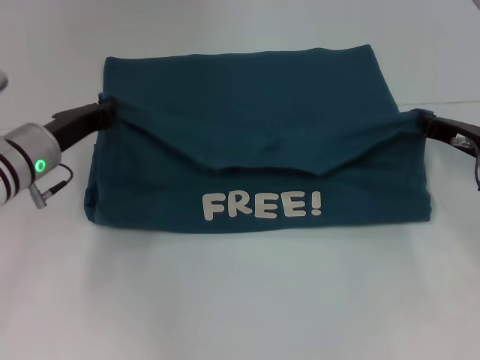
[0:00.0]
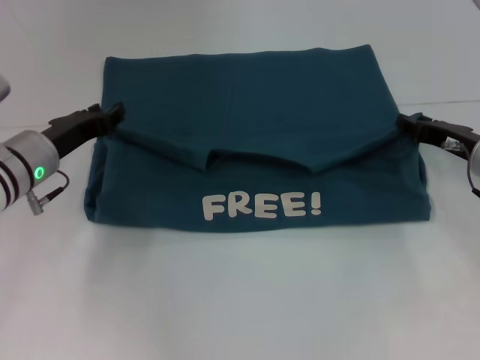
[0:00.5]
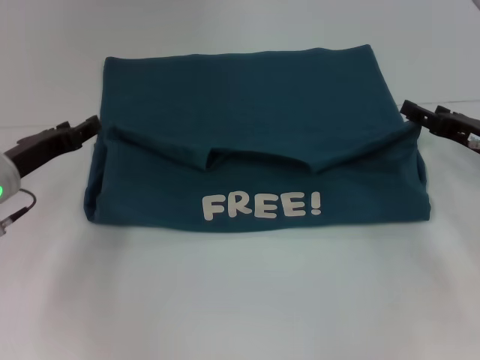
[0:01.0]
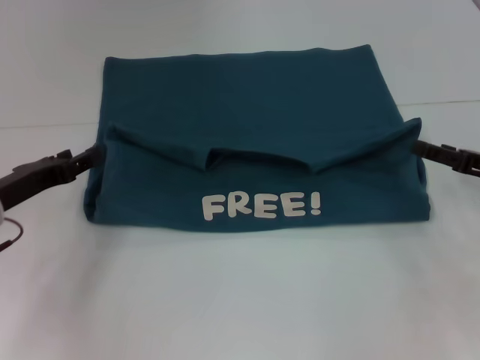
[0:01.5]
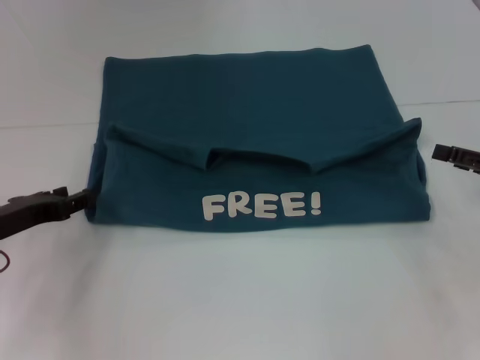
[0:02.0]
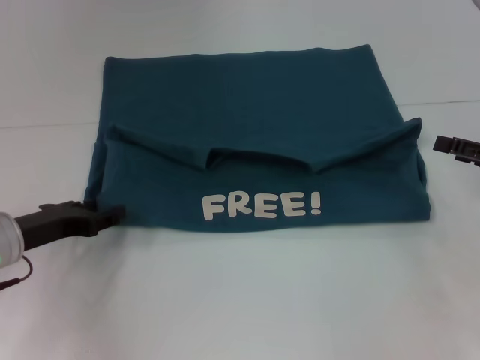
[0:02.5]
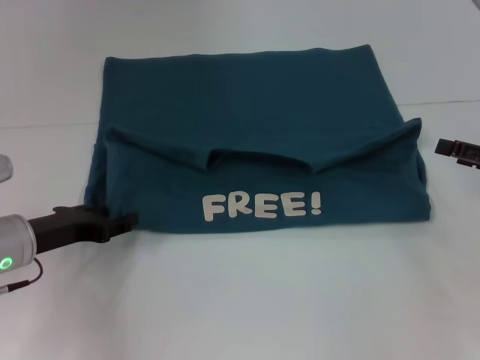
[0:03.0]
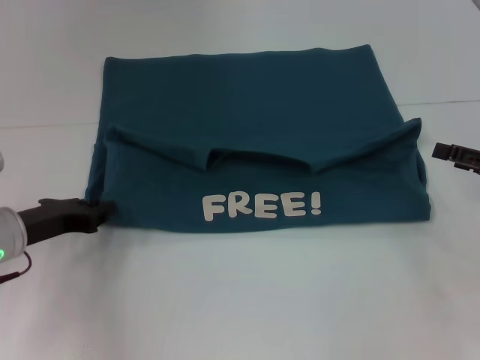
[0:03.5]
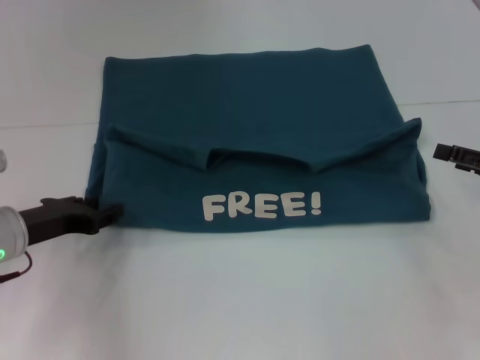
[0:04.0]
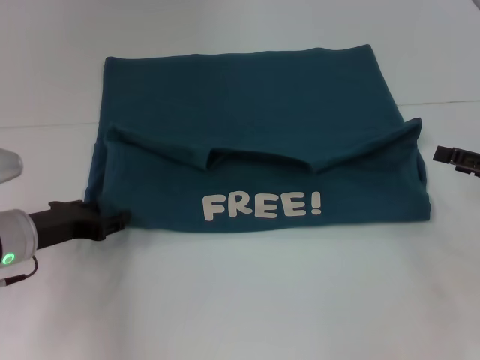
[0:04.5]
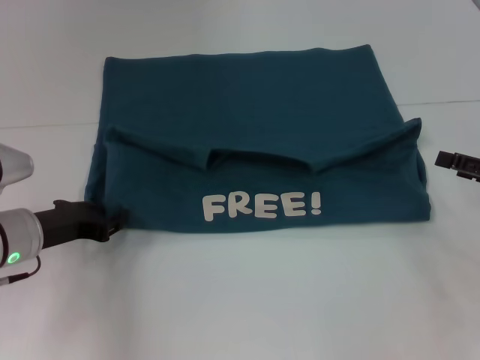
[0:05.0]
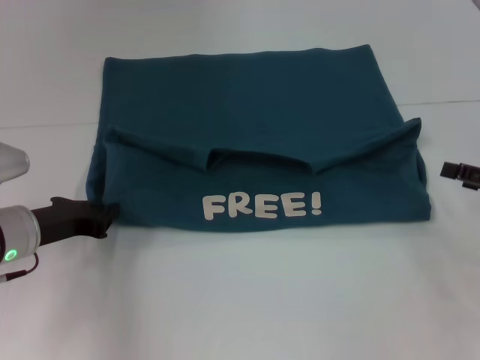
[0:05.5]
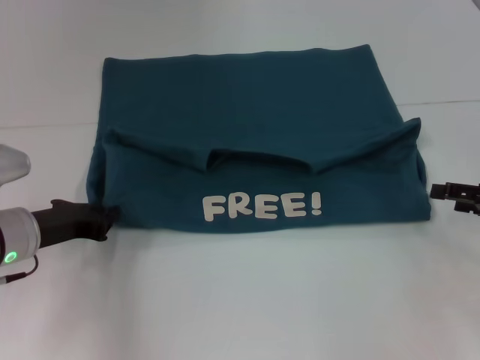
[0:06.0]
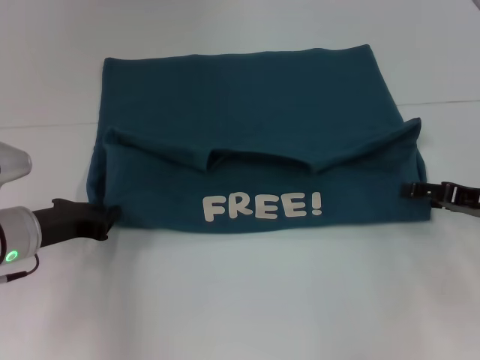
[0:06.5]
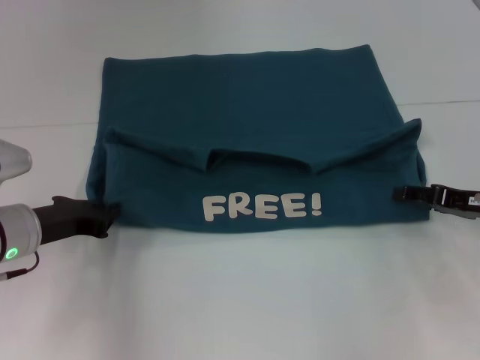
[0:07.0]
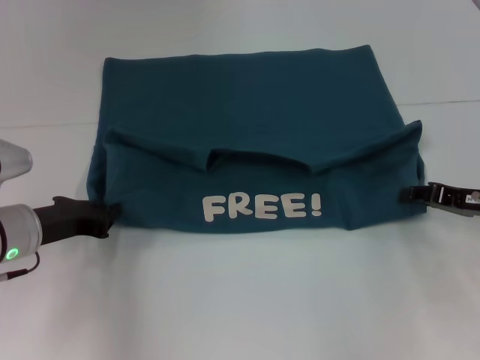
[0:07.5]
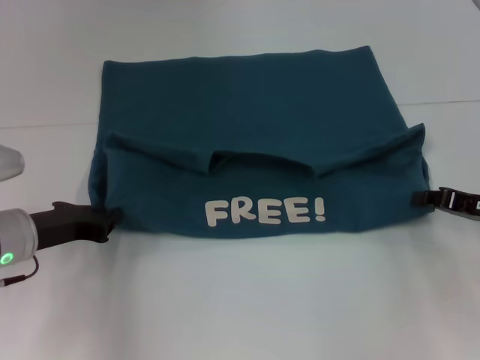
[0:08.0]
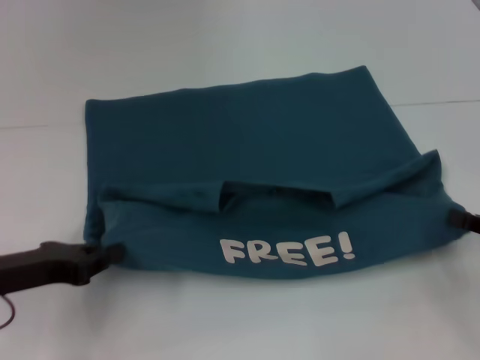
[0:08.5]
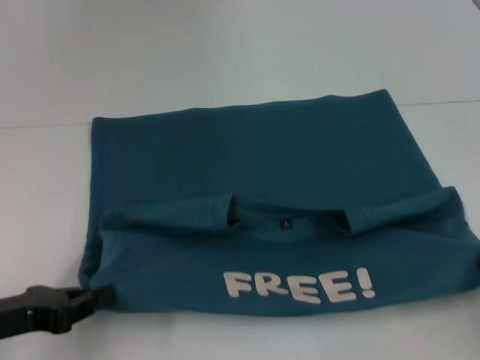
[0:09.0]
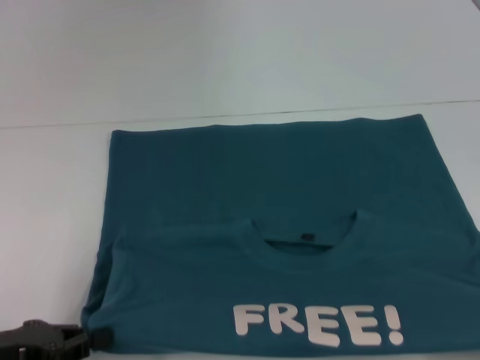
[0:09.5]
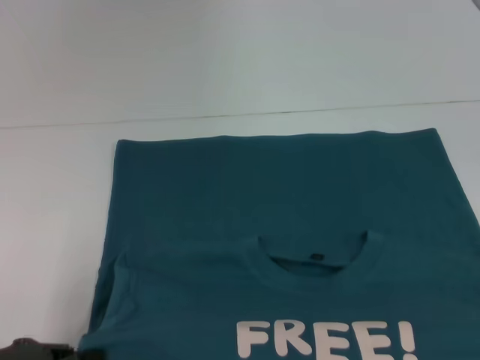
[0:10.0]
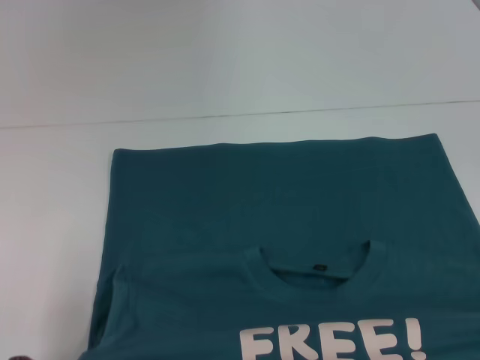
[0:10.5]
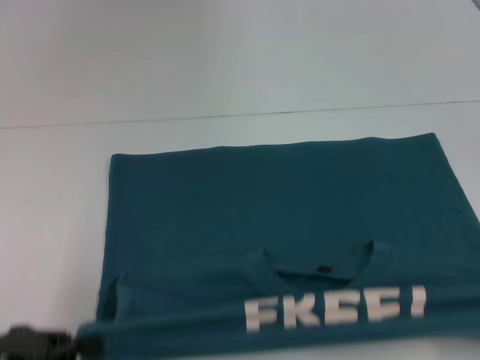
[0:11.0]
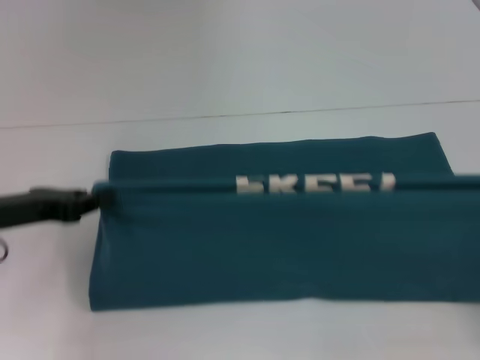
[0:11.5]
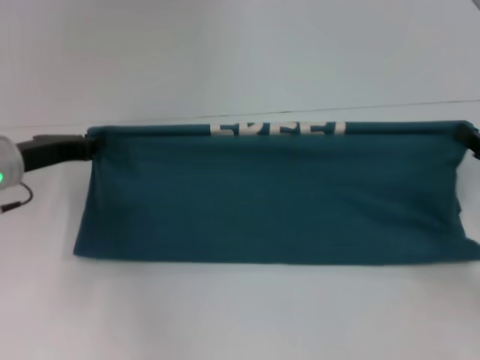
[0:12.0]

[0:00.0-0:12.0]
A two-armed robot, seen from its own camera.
Step, 1.0 to 10.0 s: Pull the clothes with your left hand.
Step, 1.0 to 10.0 s: Pull the clothes with your right hand.
0.0 to 2.0 s: The left gripper is displaced backward and to the left by approximately 10 cm, and opens. Meanwhile the right gripper moves backward and to the right, roughly 10 cm, and opens.
2.0 to 4.0 s: The grippers move only a little.
4.0 to 6.0 s: The left gripper closes its fingers.
6.0 to 8.0 s: The right gripper closes its fingers.
8.0 to 10.0 s: The left gripper goes some 15 cm backward and to the left. Meanwhile the right gripper shifts roughly 25 cm backward.
10.0 to 12.0 s: The grippers both shift forward by about 20 cm.

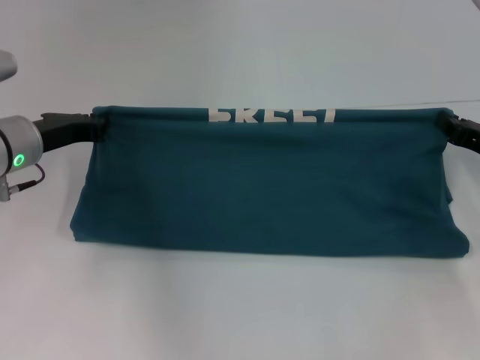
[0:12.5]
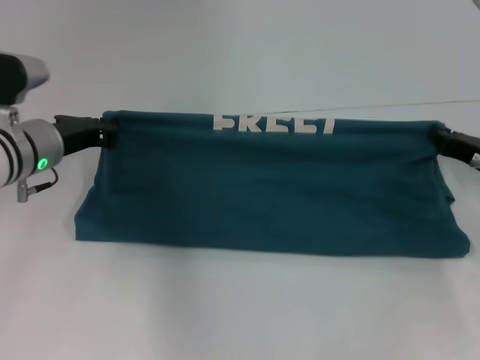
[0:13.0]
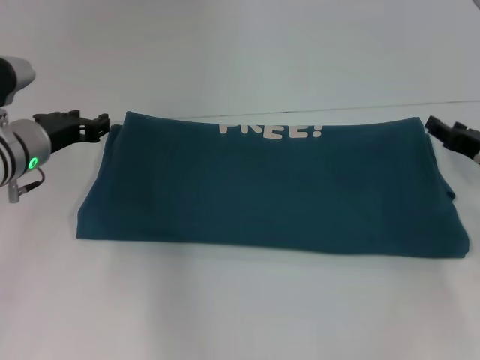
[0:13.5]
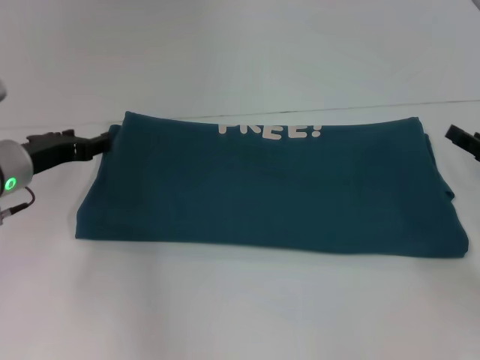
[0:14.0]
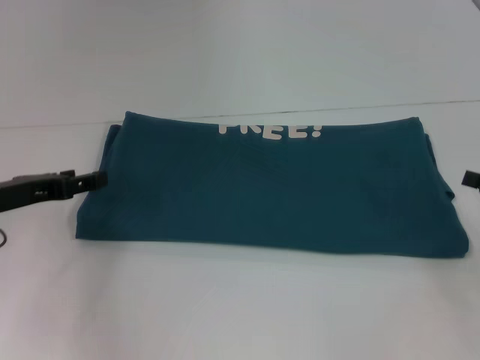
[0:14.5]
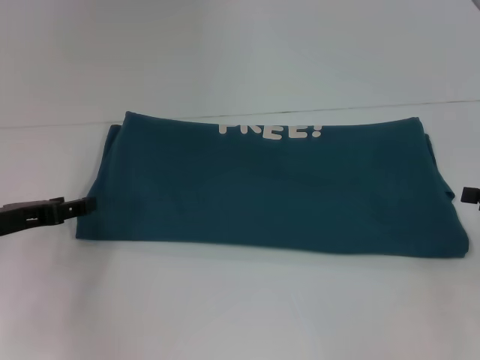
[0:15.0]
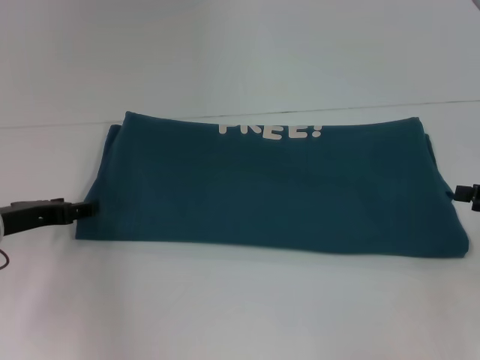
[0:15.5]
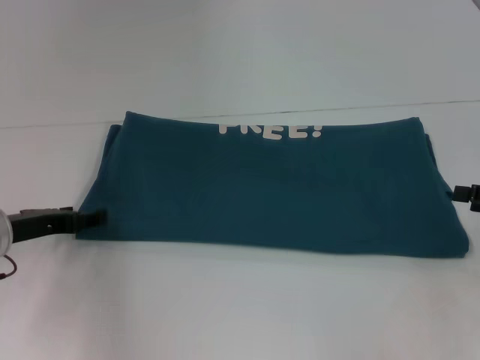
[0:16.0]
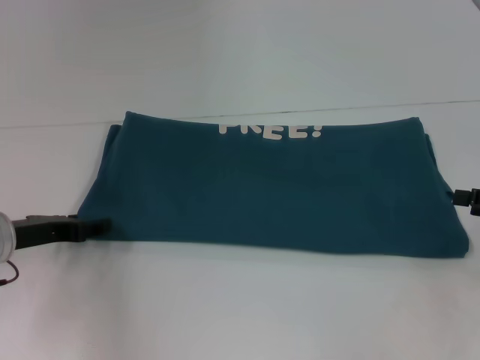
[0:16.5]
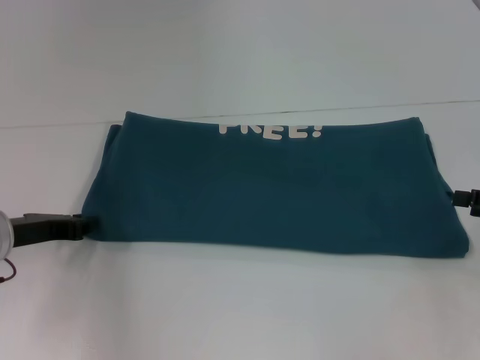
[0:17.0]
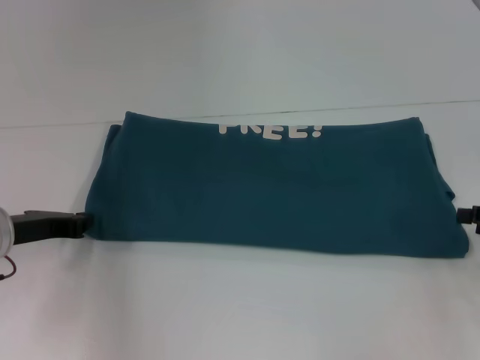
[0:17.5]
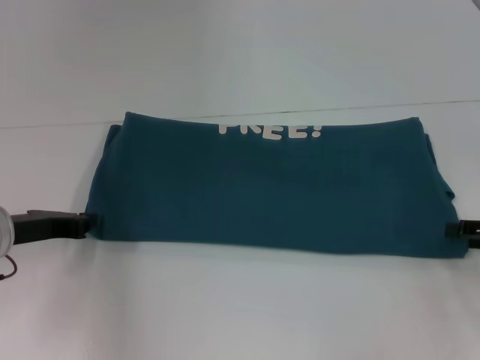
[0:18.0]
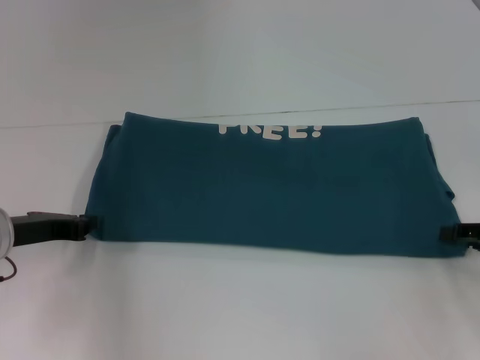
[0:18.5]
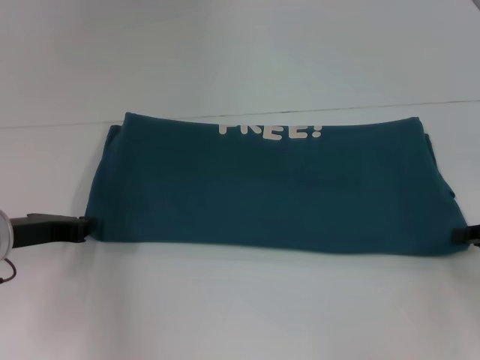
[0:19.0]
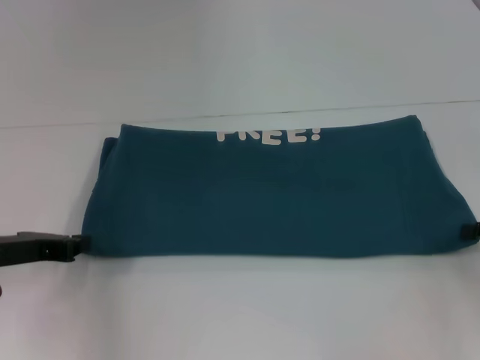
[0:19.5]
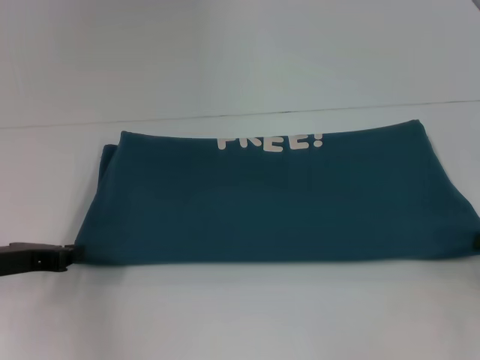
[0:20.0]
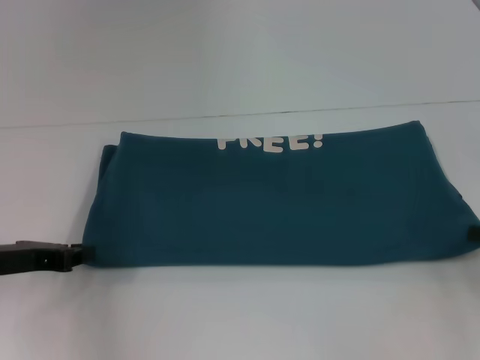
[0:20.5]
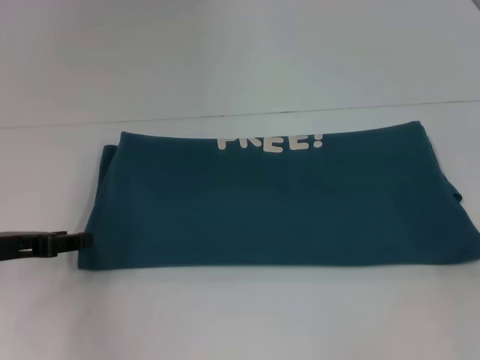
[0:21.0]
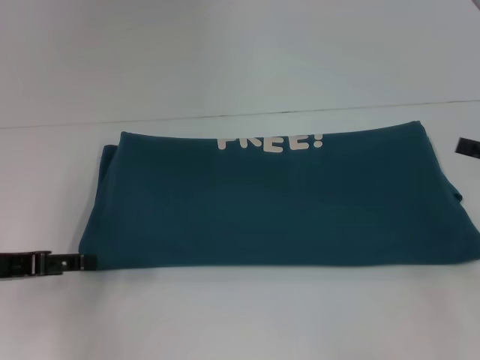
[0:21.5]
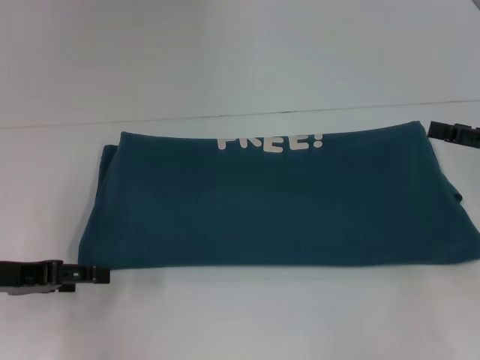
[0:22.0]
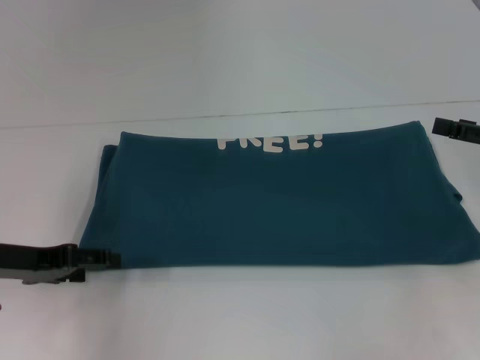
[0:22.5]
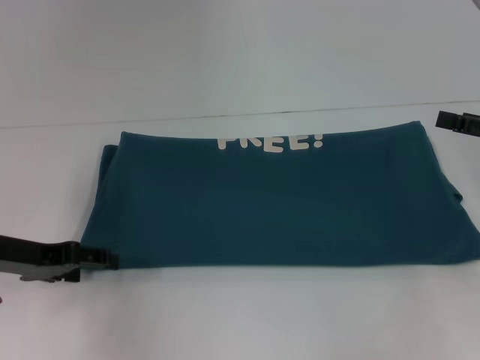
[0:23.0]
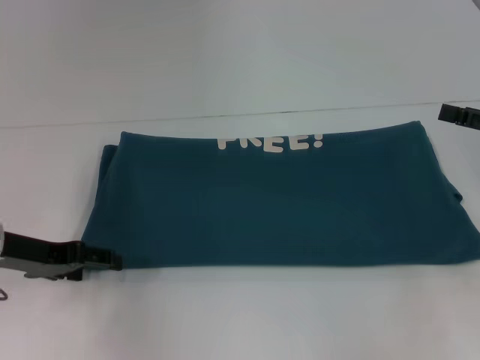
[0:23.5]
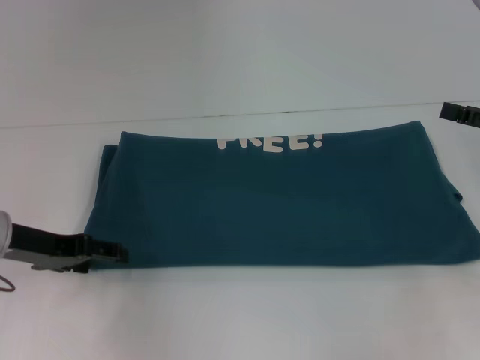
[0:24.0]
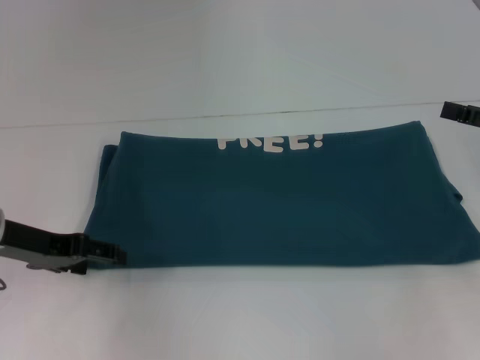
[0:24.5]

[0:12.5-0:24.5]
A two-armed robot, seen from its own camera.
12.5 to 14.5 s: The right gripper is displaced backward and to the right by some 10 cm, and opens up. Meanwhile the left gripper travels backward by some 5 cm, and opens its fingers.
14.5 to 16.5 s: There are only small adjustments of the grippers.
16.5 to 18.5 s: The left gripper closes up.
18.5 to 20.5 s: The right gripper closes its fingers.
20.5 to 22.5 s: The left gripper opens up, while the right gripper is displaced upward by roughly 5 cm, and opens up.
22.5 to 24.5 s: The grippers stay close to where they were, moving slightly.

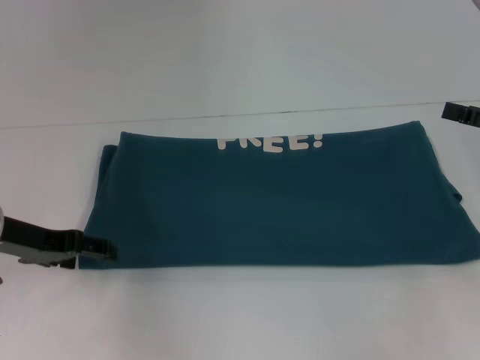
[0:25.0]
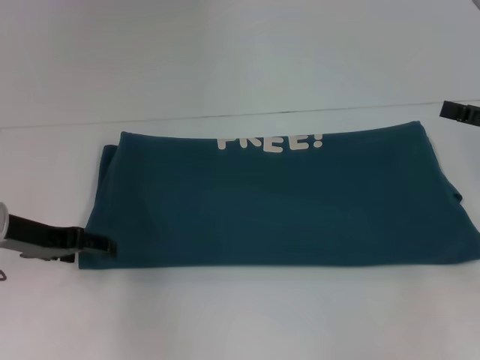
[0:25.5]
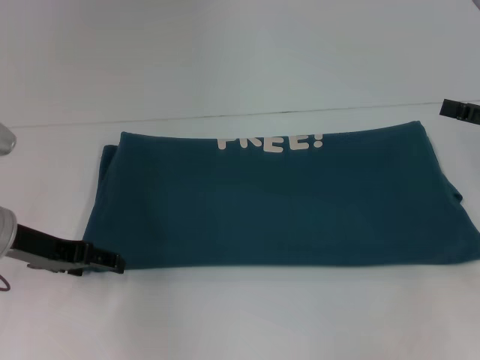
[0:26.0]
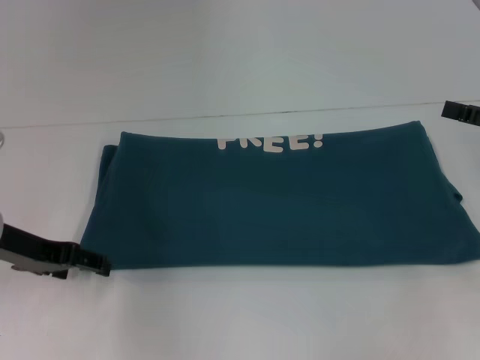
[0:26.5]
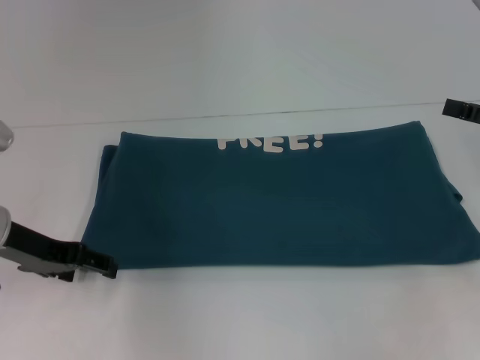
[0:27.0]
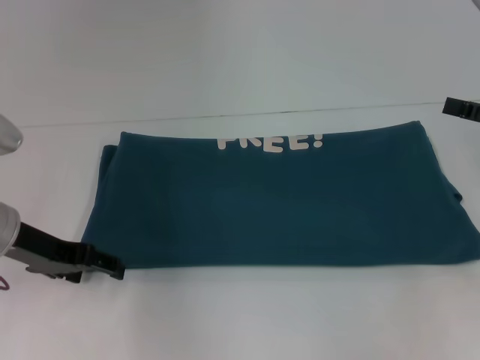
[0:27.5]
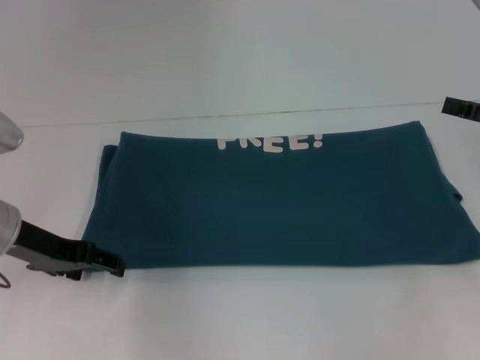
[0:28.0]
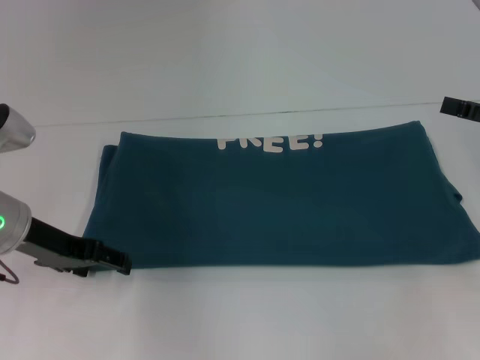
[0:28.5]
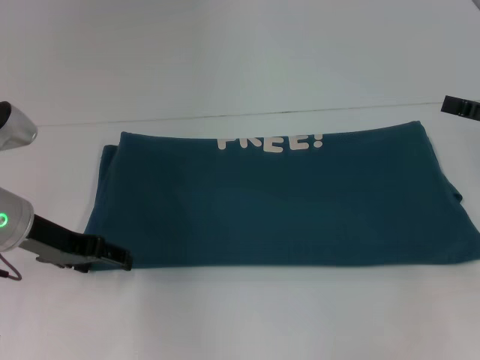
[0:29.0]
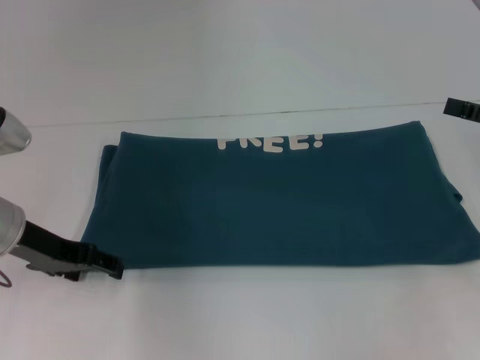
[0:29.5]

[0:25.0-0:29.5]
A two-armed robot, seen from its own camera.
25.0 to 29.5 s: The grippers move only a little.
